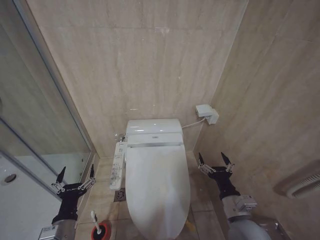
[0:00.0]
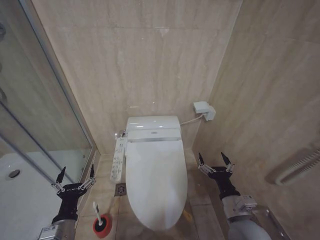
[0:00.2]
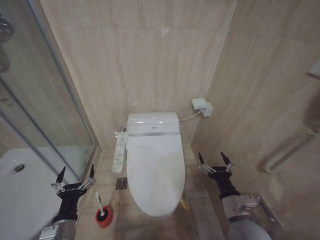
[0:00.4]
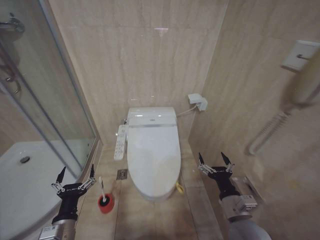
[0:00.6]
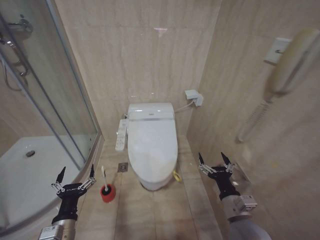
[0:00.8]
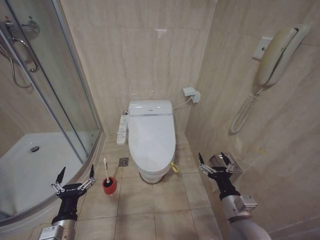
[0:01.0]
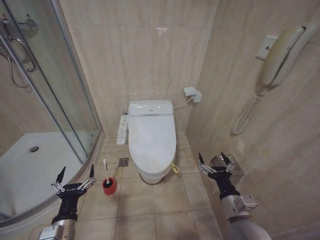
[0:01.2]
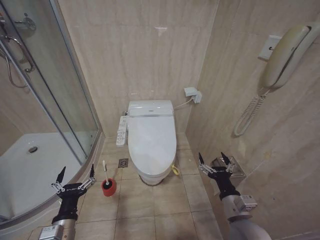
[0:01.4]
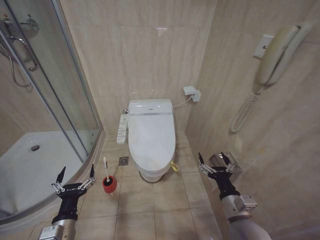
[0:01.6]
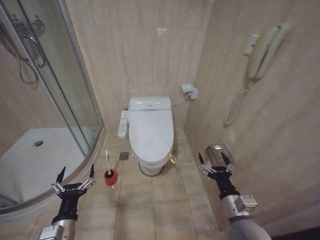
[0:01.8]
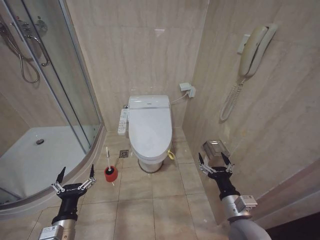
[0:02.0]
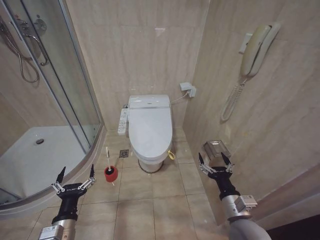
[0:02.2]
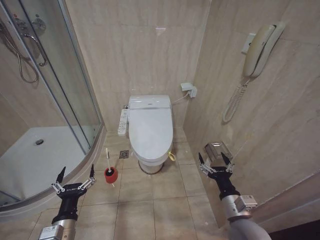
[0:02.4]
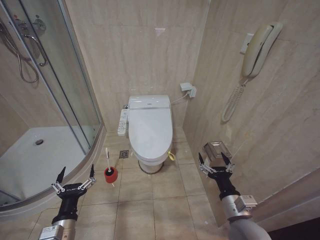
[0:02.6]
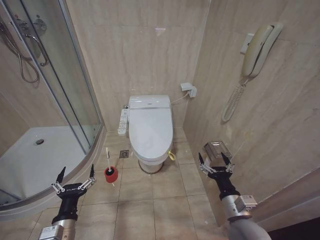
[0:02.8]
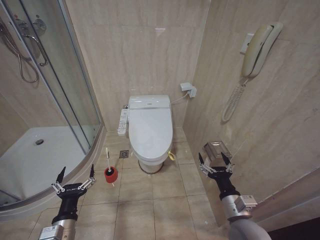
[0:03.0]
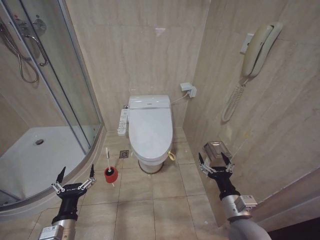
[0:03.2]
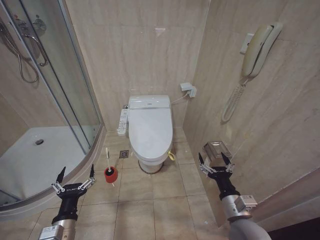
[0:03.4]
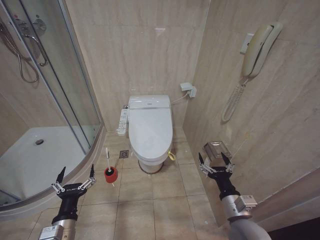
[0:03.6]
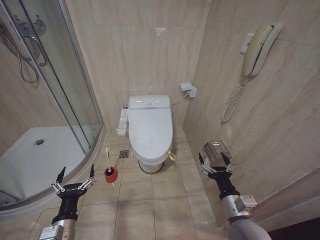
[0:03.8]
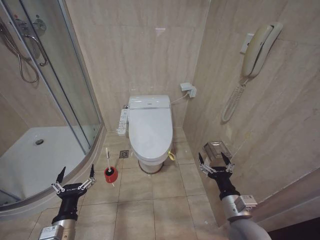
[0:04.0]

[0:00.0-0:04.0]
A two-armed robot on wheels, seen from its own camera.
Task of the whole recording: Open the toilet lid, clean the toilet bowl with a toilet brush, close the toilet lid, and flush.
0:01.4 to 0:04.0: The two grippers keep their place.

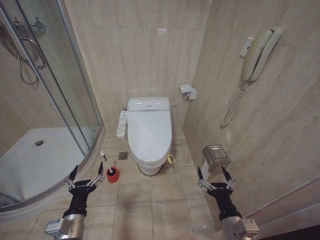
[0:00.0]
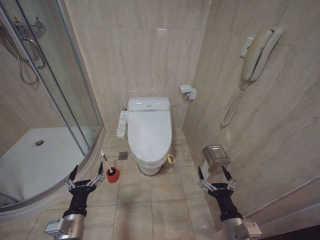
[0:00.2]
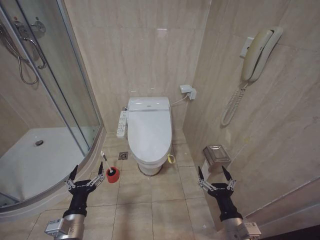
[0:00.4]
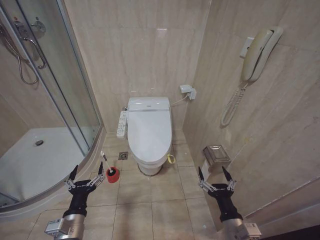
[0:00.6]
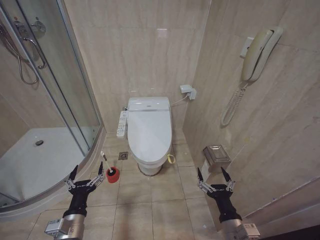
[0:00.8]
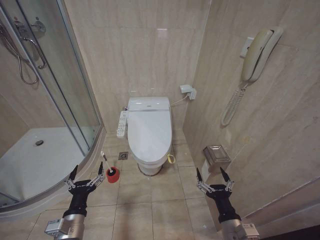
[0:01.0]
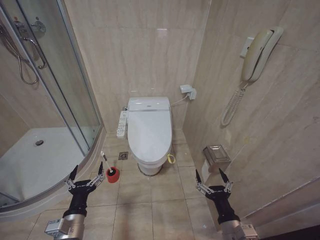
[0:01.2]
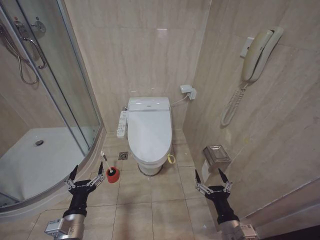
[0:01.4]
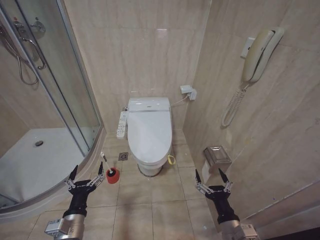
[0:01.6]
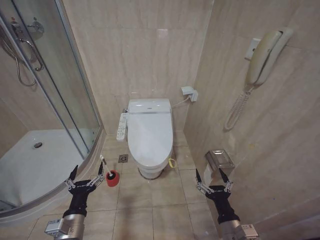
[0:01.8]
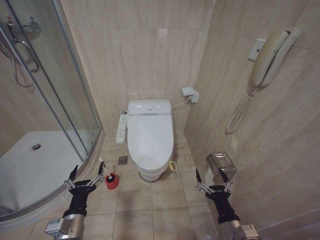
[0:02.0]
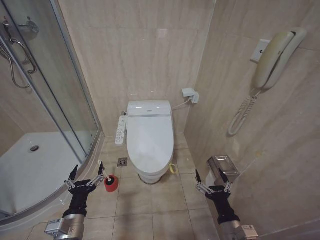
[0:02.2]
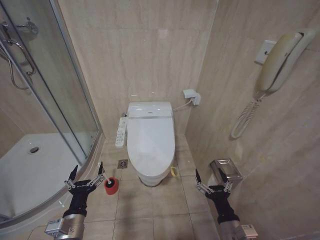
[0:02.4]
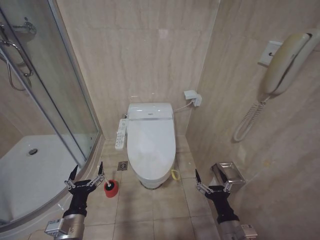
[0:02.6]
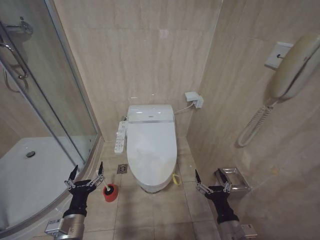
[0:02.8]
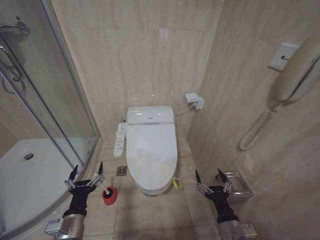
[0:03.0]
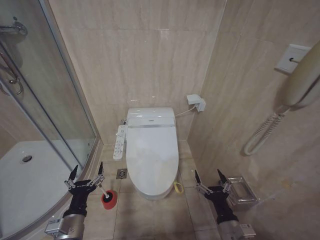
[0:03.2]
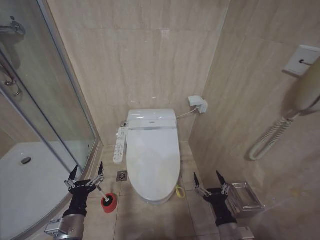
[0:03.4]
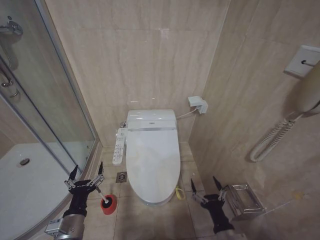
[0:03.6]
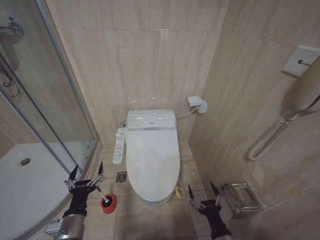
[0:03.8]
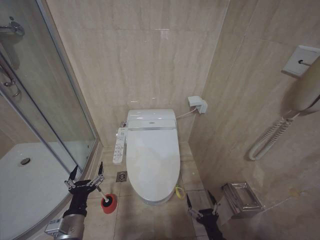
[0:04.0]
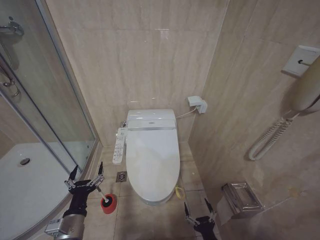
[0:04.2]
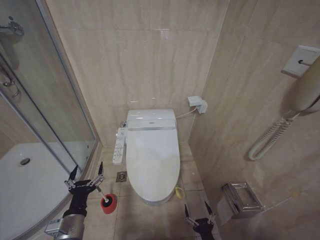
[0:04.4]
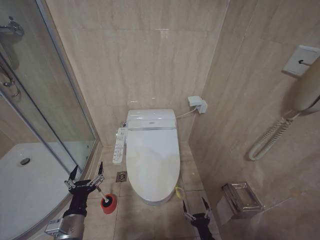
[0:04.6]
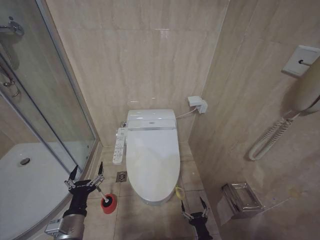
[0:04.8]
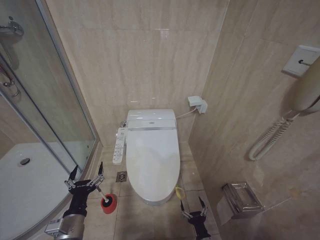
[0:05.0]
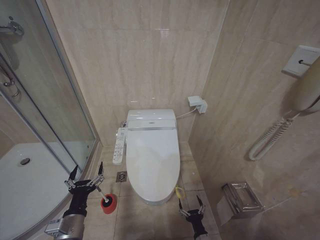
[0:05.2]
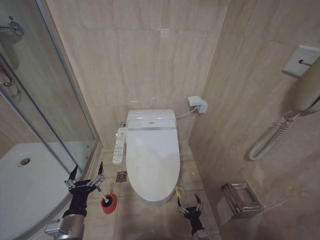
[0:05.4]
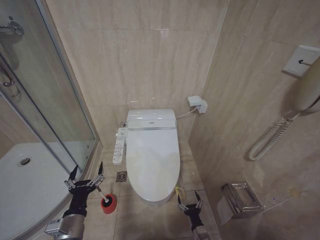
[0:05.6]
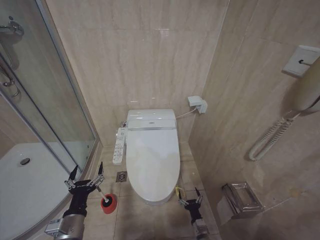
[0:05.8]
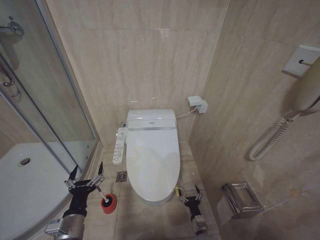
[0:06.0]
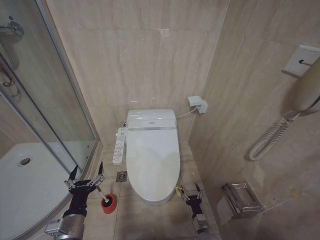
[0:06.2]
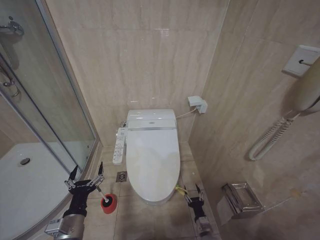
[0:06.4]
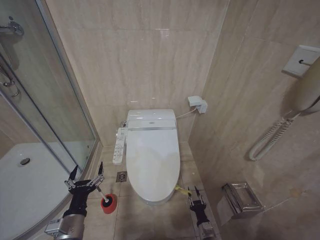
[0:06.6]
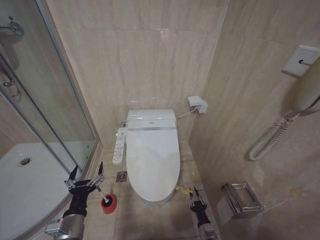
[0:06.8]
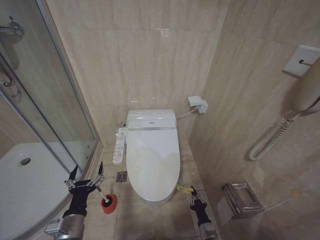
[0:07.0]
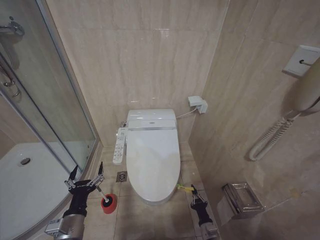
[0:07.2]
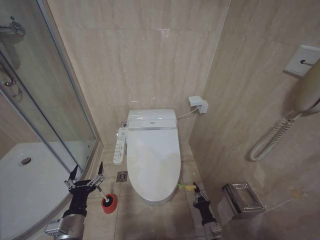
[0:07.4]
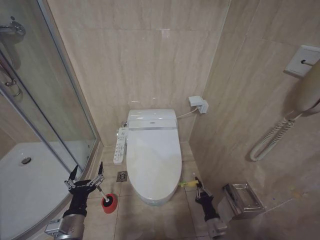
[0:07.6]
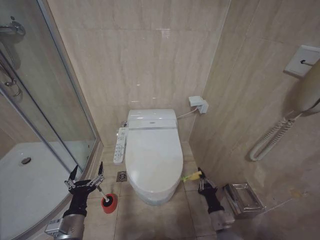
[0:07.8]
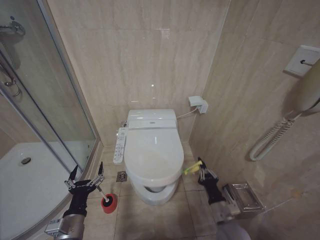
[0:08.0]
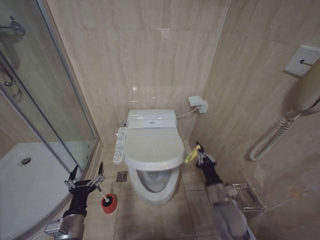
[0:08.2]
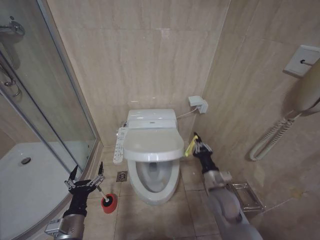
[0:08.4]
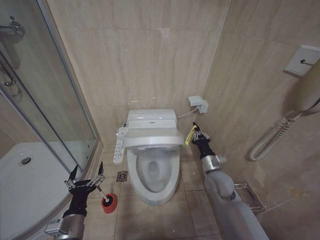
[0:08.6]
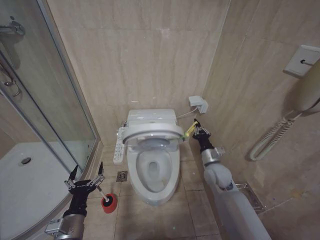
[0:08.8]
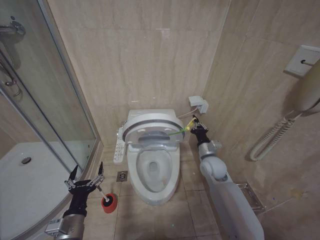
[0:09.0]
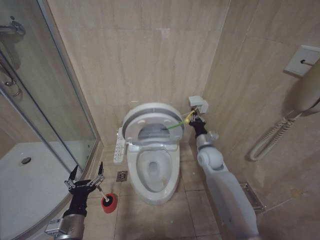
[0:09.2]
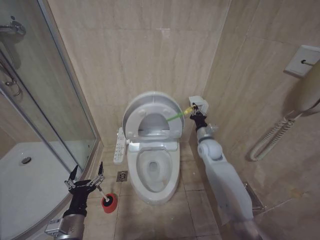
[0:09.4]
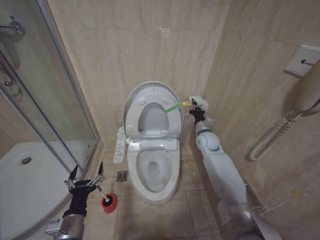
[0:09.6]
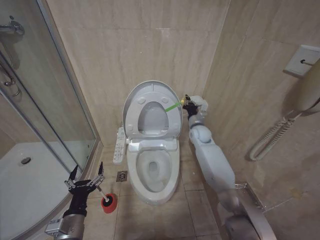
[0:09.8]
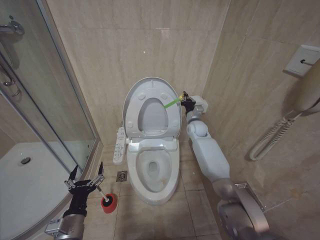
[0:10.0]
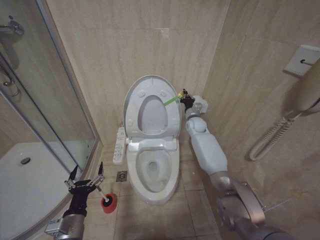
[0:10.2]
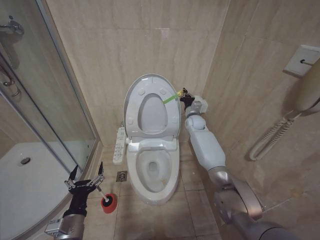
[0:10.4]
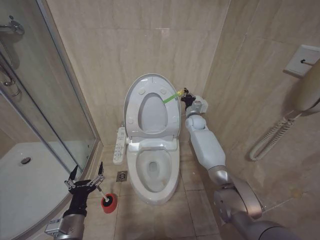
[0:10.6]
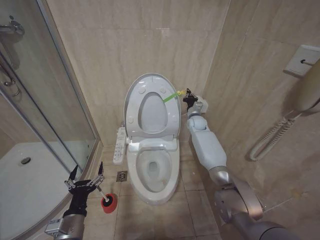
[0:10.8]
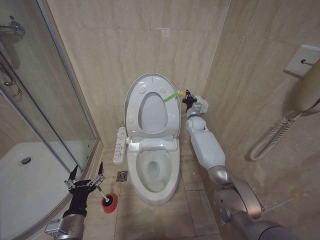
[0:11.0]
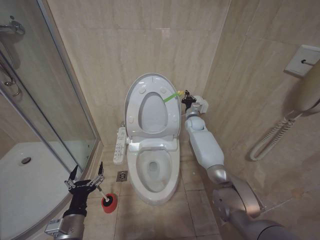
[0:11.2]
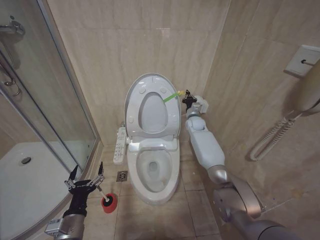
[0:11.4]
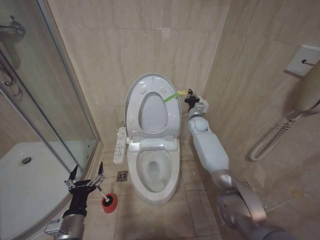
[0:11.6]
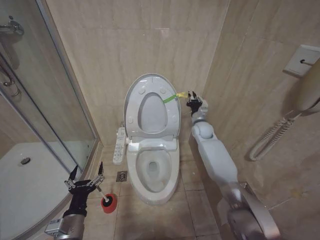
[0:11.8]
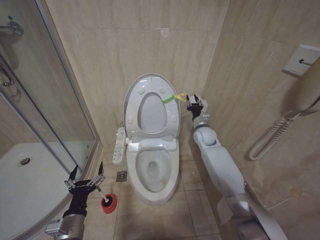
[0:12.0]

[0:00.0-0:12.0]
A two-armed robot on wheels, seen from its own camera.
Task of the whole recording: Open the toilet lid, clean the toilet bowl with a toilet brush, close the toilet lid, and flush.
0:01.6 to 0:03.0: The two grippers keep their place.
0:03.0 to 0:04.4: The right gripper heads downward, covering approximately 15 cm.
0:04.4 to 0:06.0: The right gripper moves forward and downward, roughly 15 cm.
0:06.0 to 0:07.6: The right gripper heads upward, covering roughly 5 cm, and closes its fingers.
0:07.6 to 0:09.0: The right gripper moves upward and forward, approximately 35 cm.
0:09.0 to 0:10.4: The right gripper moves forward and upward, some 25 cm.
0:10.4 to 0:12.0: The right gripper shifts roughly 5 cm backward.

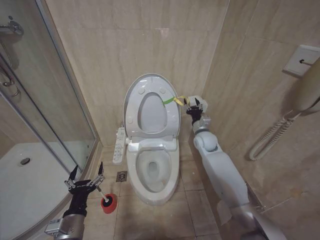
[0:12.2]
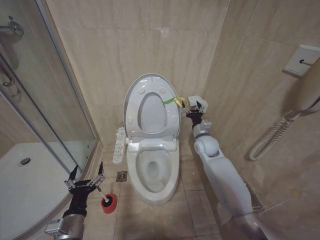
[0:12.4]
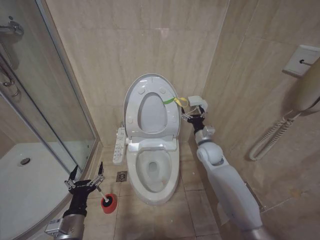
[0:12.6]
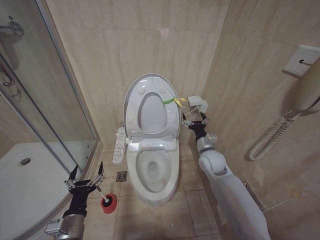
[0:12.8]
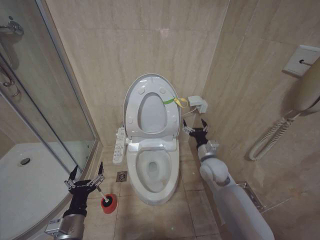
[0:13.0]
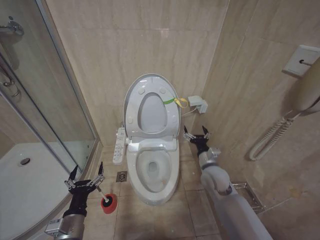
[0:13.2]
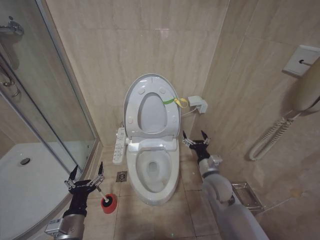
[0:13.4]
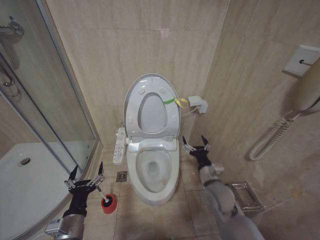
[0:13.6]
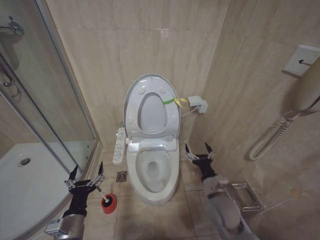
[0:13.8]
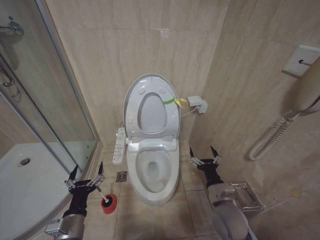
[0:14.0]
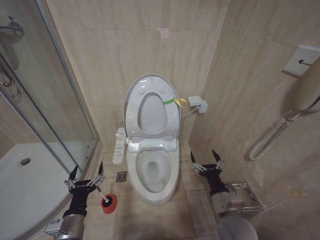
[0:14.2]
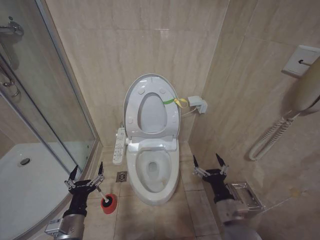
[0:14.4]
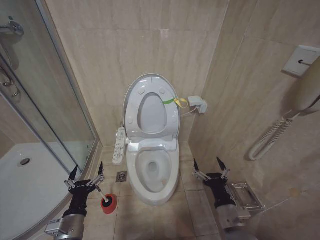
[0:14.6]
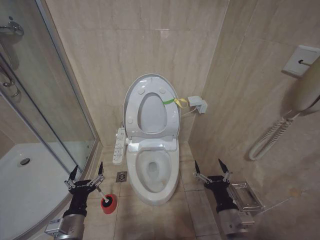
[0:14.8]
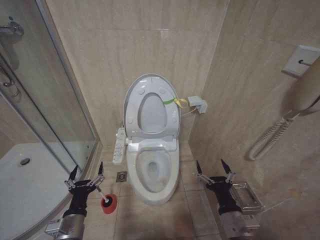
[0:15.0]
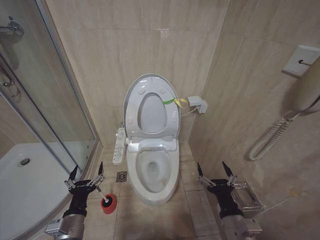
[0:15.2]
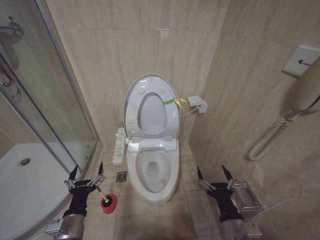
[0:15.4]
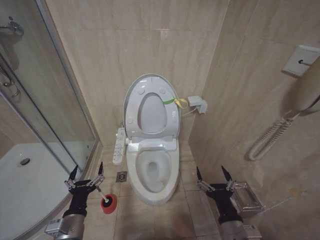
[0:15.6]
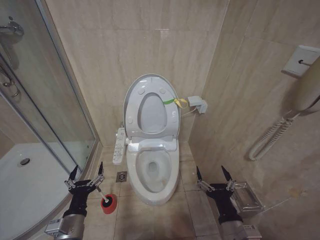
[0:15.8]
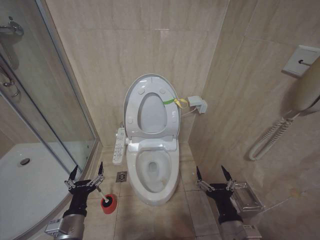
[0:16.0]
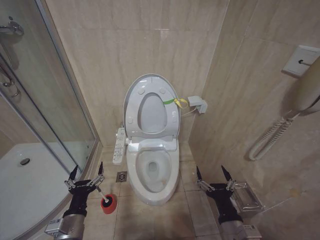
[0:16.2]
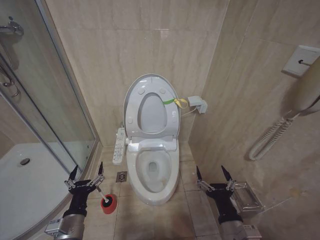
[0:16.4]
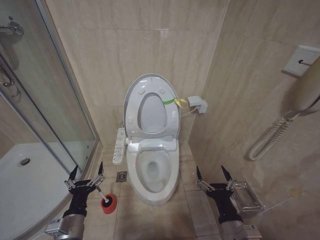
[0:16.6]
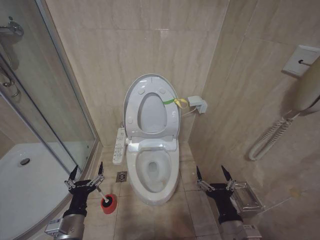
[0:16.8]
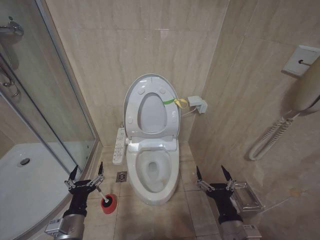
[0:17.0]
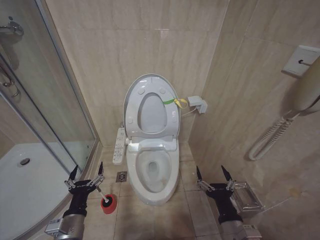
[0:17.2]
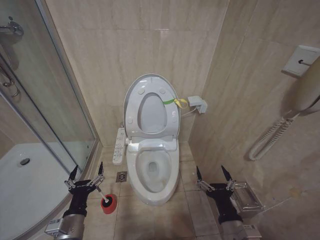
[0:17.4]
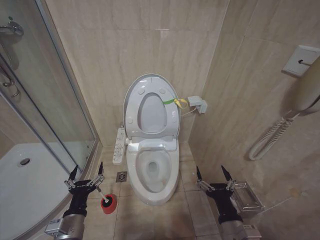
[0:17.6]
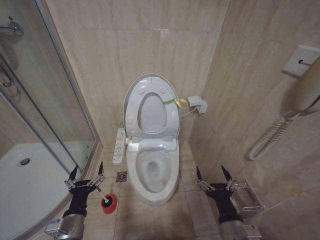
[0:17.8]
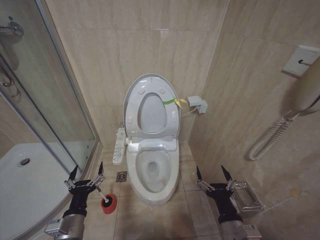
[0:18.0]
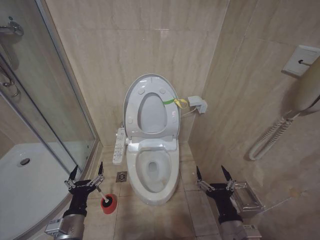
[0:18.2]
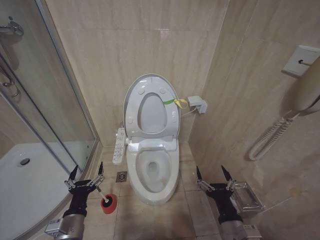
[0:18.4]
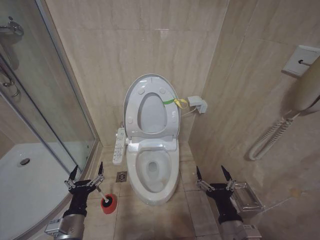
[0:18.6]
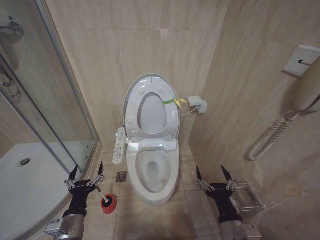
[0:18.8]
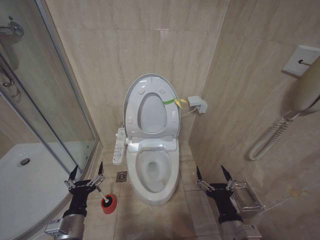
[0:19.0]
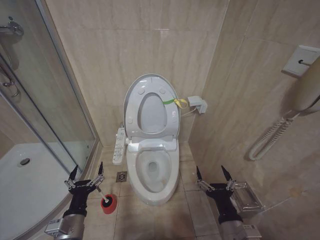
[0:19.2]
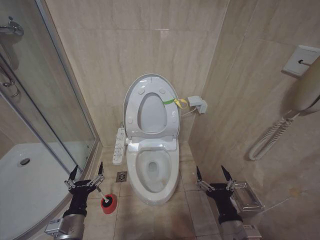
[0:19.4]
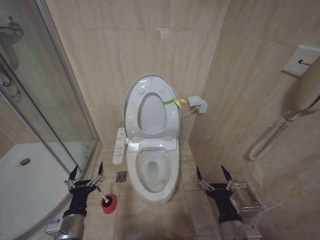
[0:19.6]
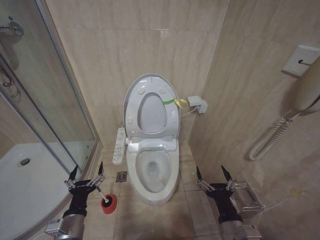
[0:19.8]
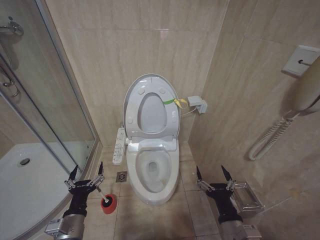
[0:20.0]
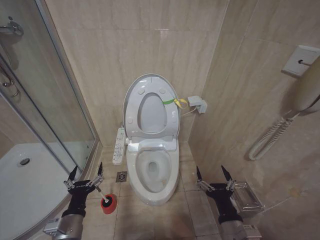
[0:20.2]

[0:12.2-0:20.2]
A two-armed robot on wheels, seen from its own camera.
Task of the whole recording: Open the toilet lid, clean the toilet bowl with a toilet brush, close the toilet lid, and flush.
0:12.2 to 0:13.8: The right gripper heads backward, covering approximately 25 cm, and opens its fingers.
0:13.8 to 0:15.4: The right gripper is displaced backward by some 15 cm.
0:15.4 to 0:20.2: Both grippers stay about where they are.
